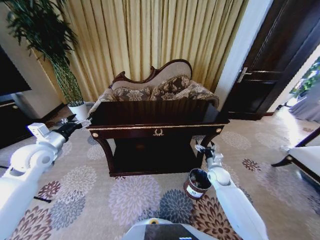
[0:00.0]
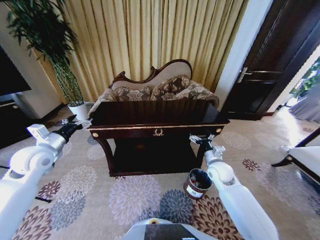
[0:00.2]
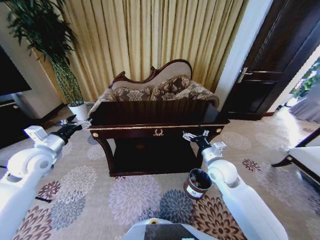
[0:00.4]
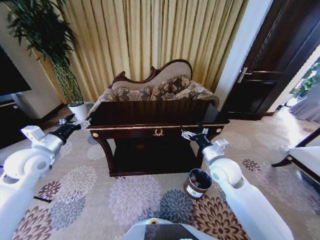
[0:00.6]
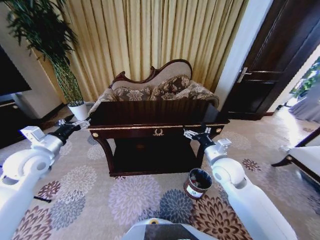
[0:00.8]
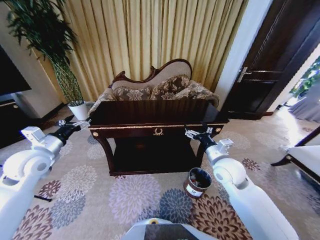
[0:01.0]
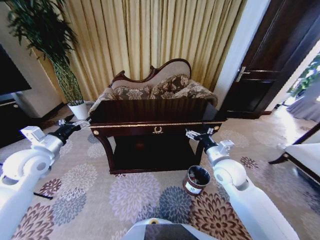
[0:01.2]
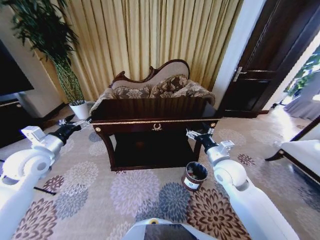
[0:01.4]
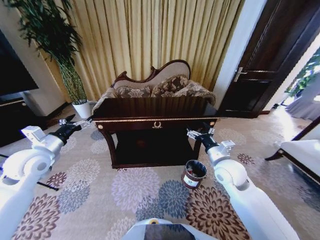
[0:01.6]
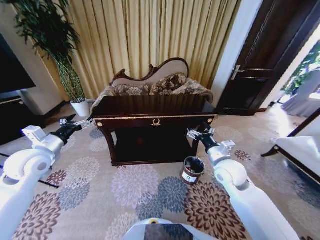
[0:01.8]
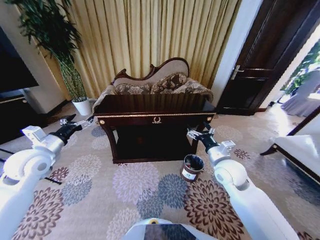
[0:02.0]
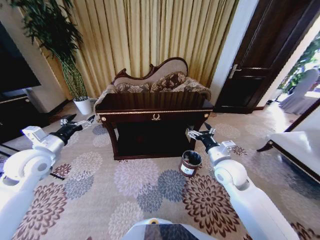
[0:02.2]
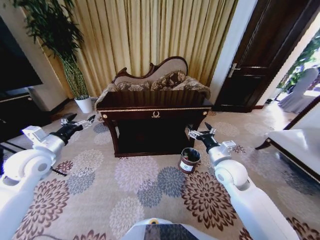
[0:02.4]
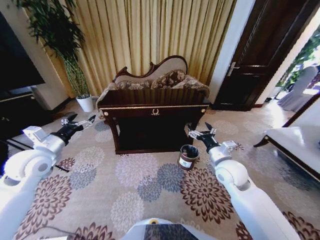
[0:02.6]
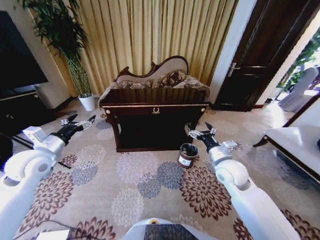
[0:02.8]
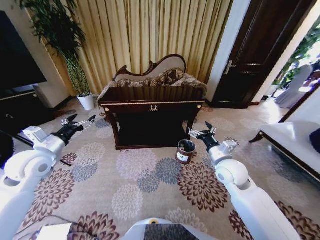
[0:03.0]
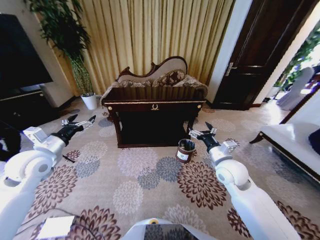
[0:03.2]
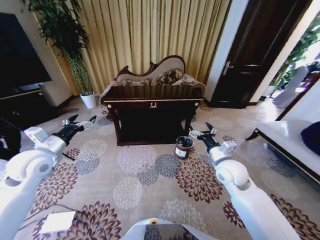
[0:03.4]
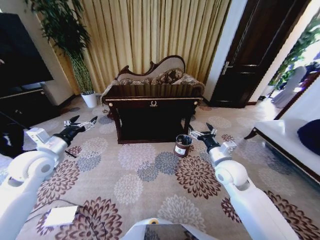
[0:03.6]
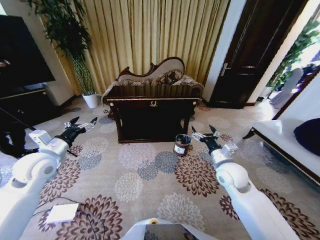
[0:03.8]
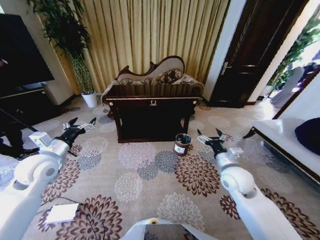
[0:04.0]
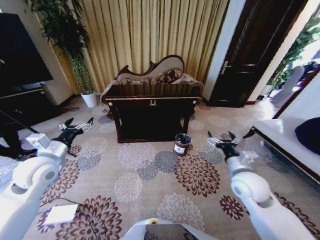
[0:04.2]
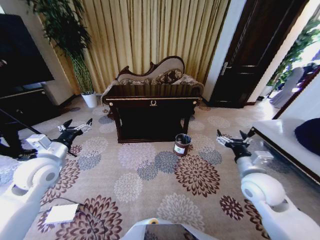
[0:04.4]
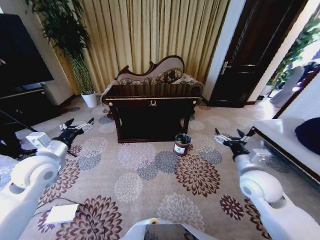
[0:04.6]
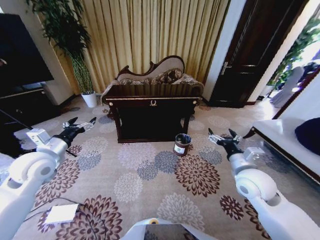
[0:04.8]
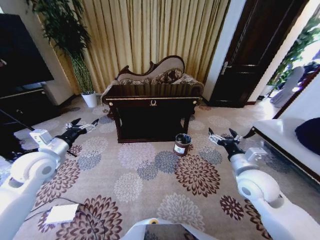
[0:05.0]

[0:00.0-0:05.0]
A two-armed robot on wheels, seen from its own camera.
Task of the whole recording: Move to the front of the table and place the trash on the table into the trash bin.
0:00.0 to 0:01.6: The right gripper is displaced upward by about 15 cm.
0:03.4 to 0:05.0: The right gripper heads backward, covering roughly 5 cm.

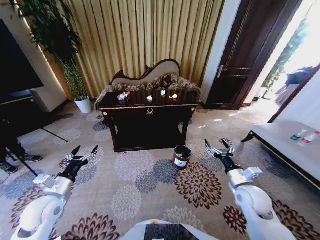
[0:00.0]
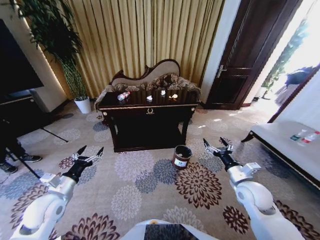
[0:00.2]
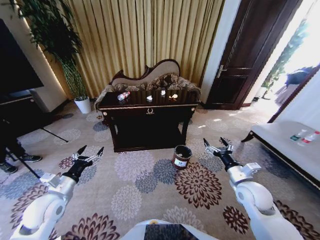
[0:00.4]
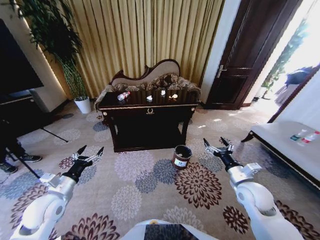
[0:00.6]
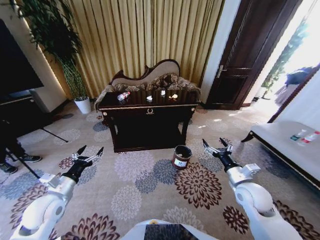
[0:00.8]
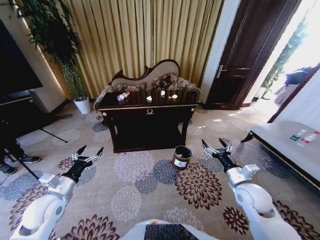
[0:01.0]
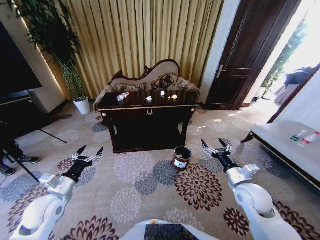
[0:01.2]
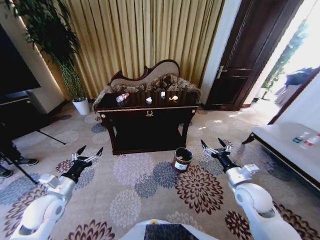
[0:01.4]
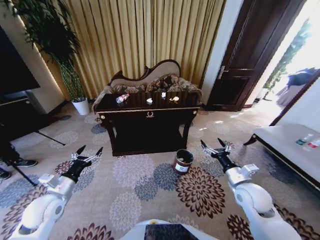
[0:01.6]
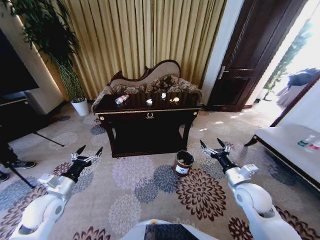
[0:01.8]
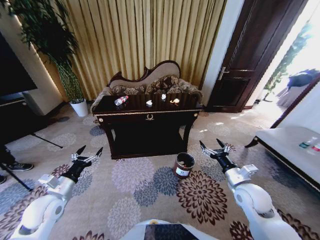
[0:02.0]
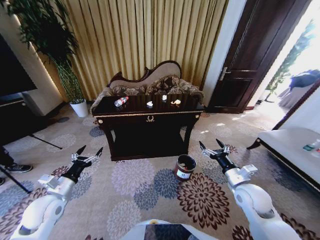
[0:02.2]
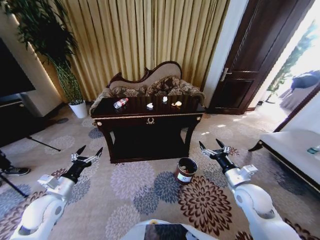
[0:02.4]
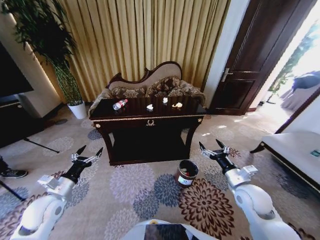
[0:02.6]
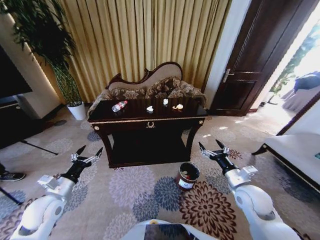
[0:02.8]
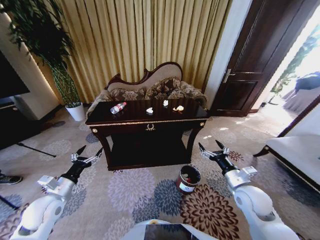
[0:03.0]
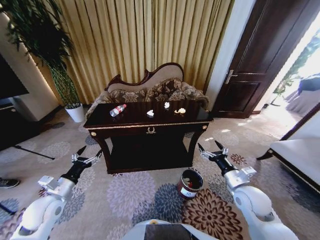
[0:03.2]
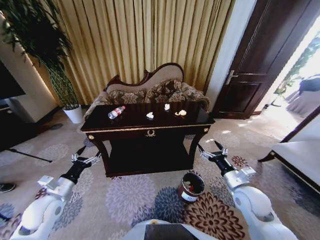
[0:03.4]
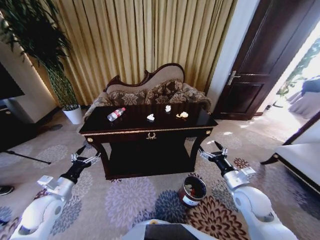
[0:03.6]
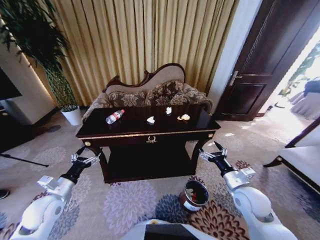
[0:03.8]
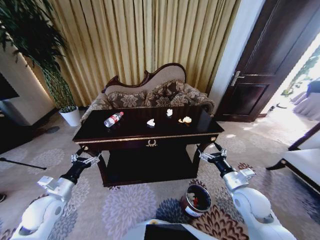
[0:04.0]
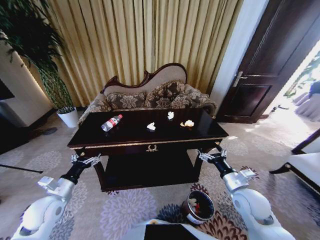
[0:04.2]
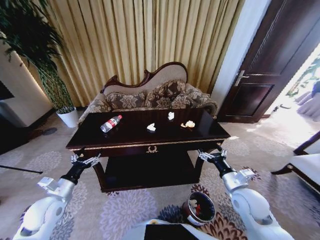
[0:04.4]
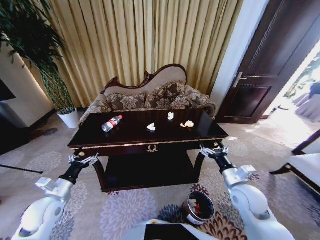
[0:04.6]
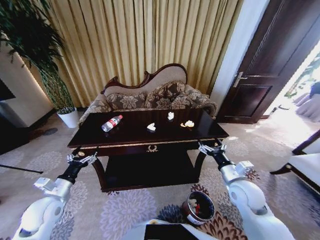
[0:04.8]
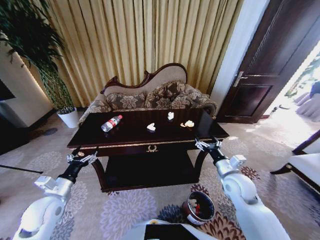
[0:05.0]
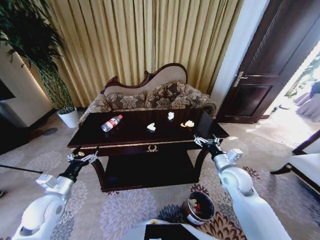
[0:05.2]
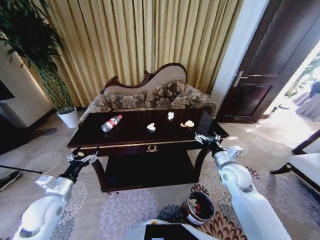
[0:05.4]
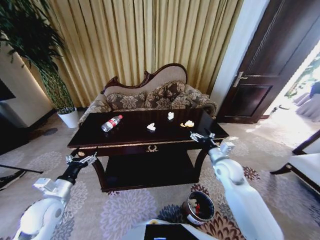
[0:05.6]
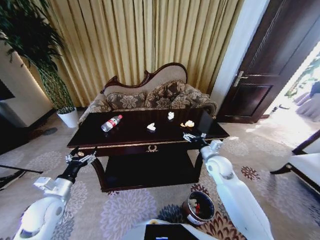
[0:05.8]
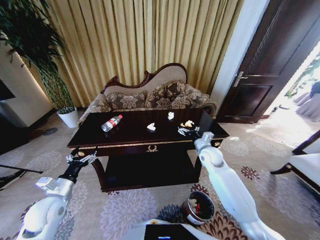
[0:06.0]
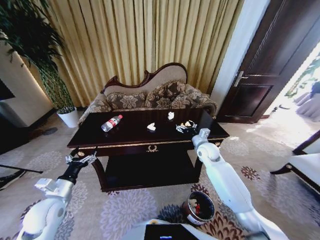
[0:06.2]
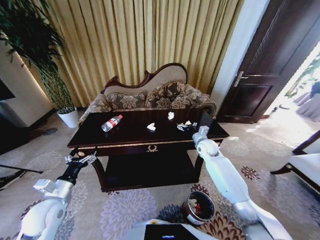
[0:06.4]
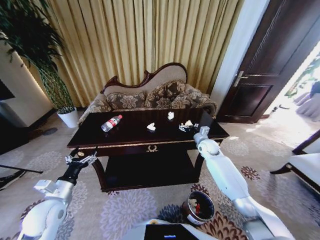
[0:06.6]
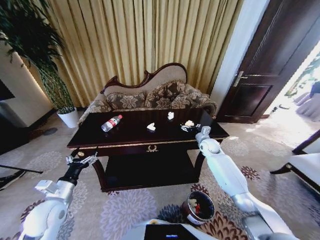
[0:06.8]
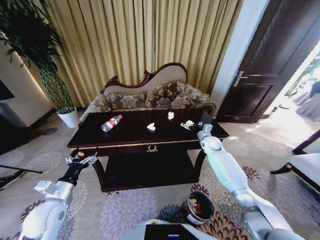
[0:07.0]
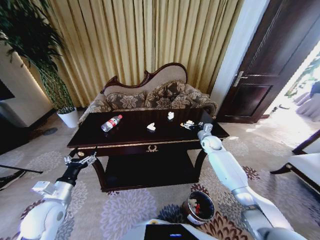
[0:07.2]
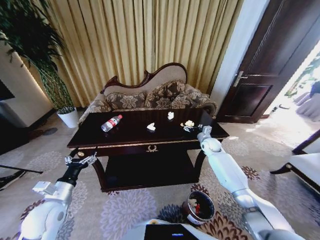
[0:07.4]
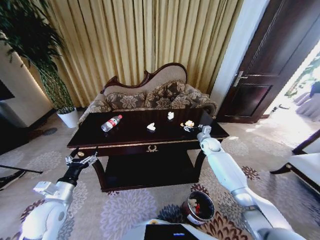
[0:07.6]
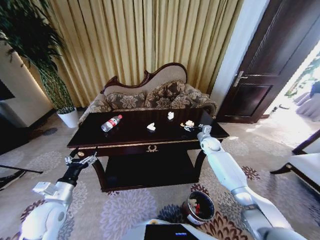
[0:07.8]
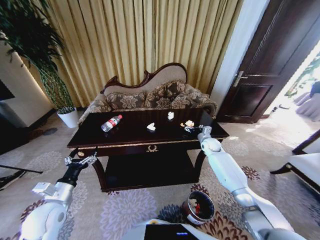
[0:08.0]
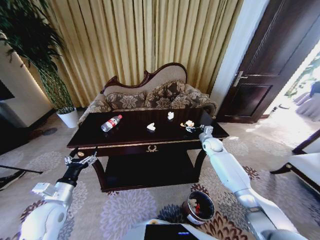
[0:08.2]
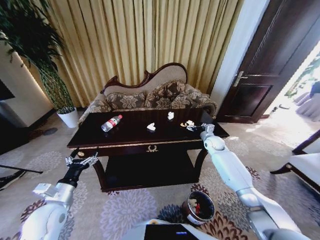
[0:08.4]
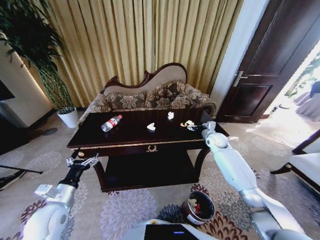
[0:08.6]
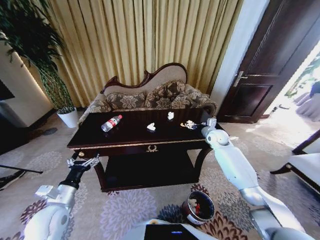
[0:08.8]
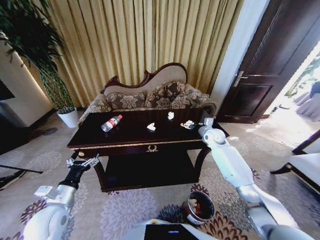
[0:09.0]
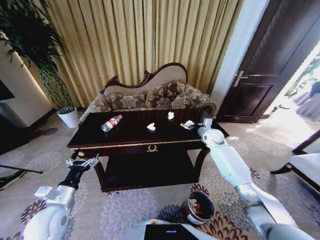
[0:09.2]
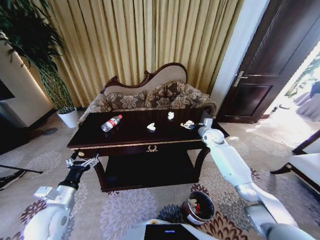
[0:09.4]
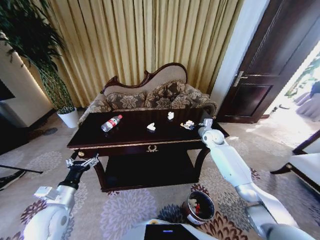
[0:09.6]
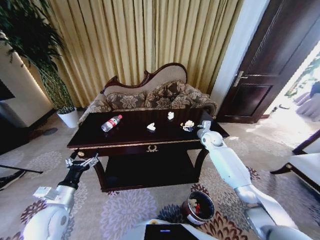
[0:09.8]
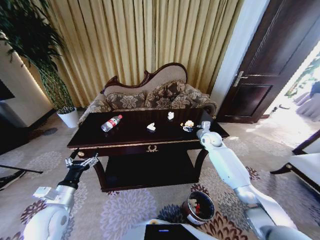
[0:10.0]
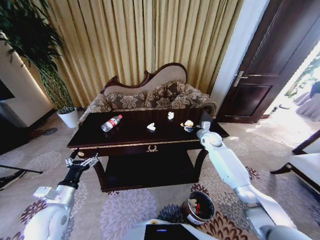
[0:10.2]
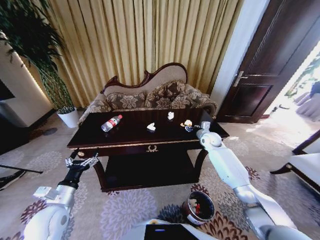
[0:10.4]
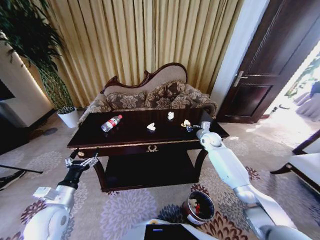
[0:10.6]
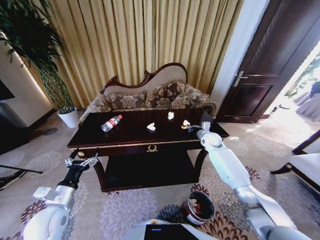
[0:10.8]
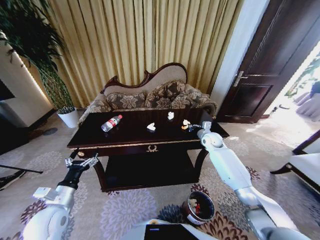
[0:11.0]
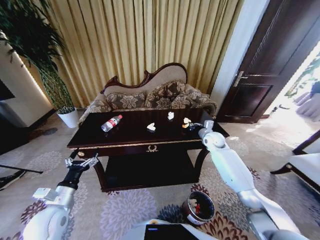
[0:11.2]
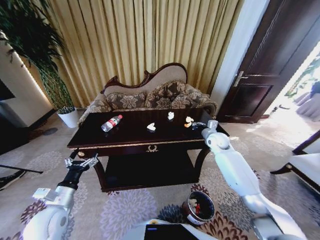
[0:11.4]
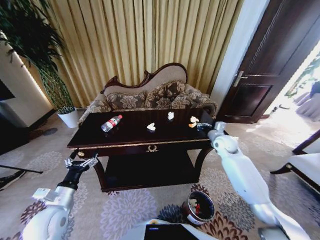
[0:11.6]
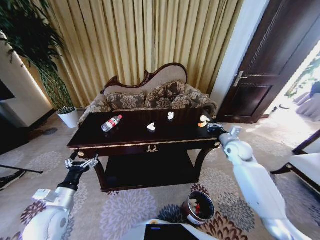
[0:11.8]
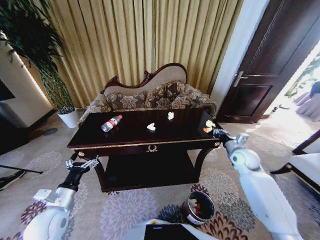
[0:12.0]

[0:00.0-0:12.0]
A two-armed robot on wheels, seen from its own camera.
Task of the whole recording: Move to the front of the table and place the trash on the table into the trash bin.
0:04.4 to 0:06.0: The right gripper shifts roughly 20 cm forward.
0:06.0 to 0:07.6: The right gripper heads forward and to the right, covering some 15 cm.
0:07.6 to 0:09.0: The right gripper moves upward, approximately 5 cm.
0:09.0 to 0:10.4: The right gripper closes up.
0:10.4 to 0:12.0: The right gripper heads backward and to the right, covering approximately 15 cm, and closes its fingers.

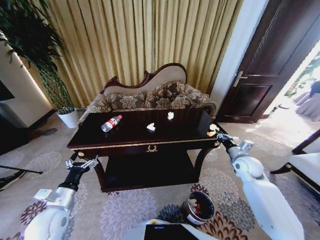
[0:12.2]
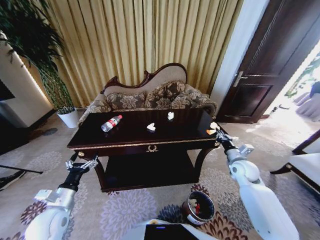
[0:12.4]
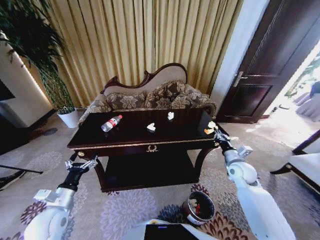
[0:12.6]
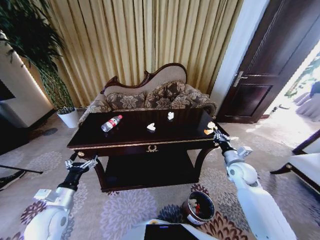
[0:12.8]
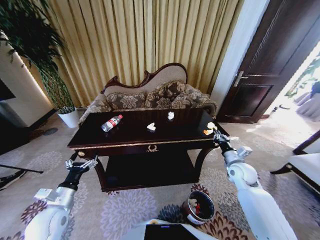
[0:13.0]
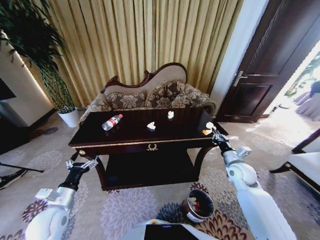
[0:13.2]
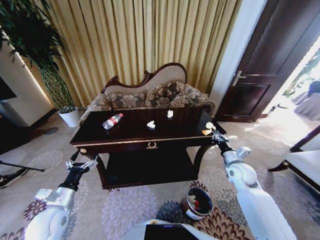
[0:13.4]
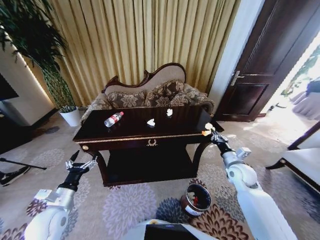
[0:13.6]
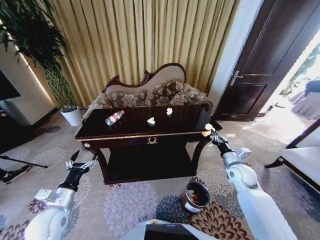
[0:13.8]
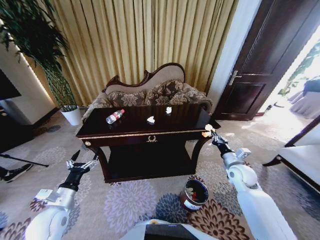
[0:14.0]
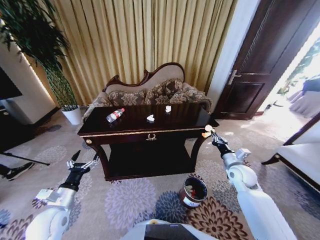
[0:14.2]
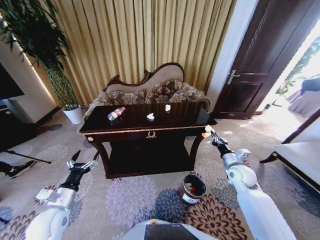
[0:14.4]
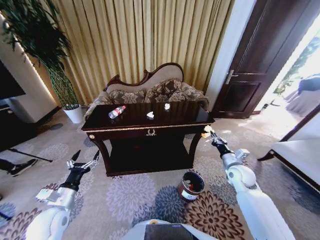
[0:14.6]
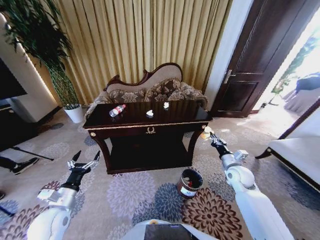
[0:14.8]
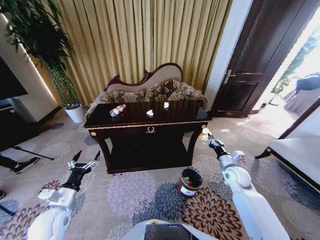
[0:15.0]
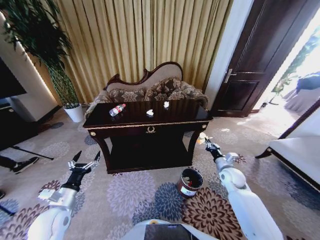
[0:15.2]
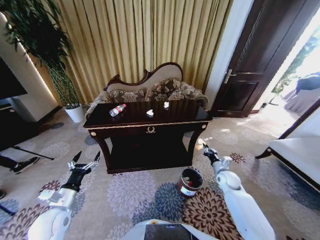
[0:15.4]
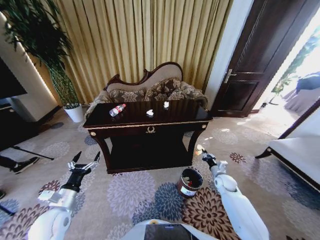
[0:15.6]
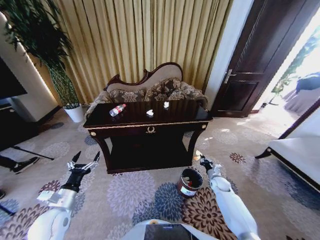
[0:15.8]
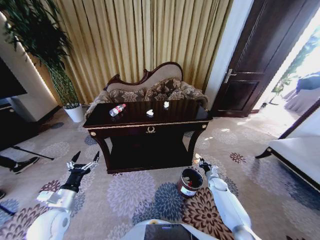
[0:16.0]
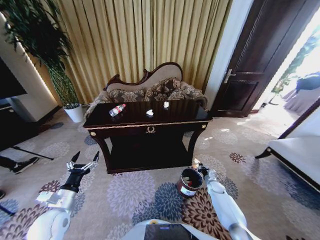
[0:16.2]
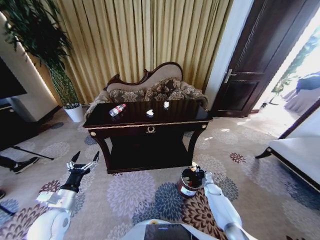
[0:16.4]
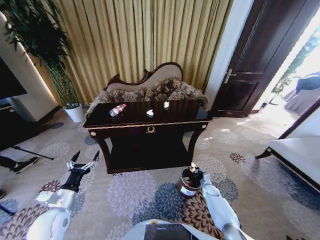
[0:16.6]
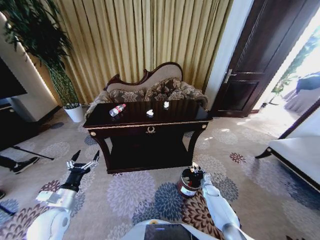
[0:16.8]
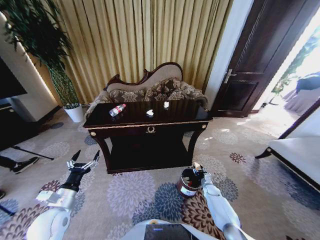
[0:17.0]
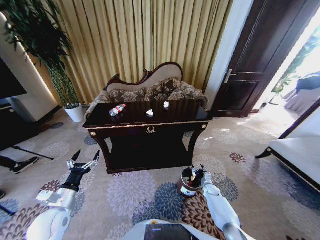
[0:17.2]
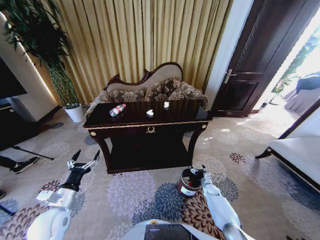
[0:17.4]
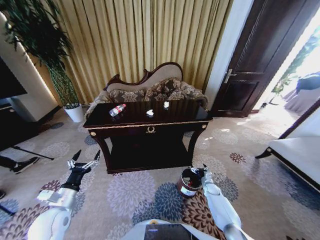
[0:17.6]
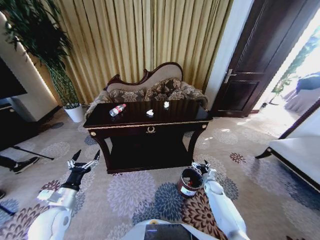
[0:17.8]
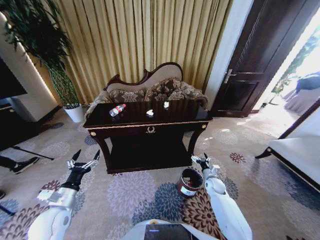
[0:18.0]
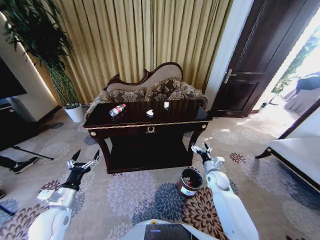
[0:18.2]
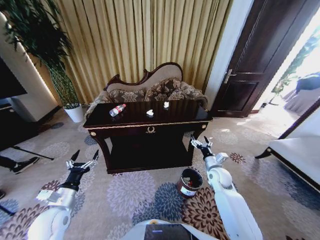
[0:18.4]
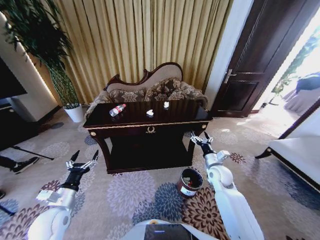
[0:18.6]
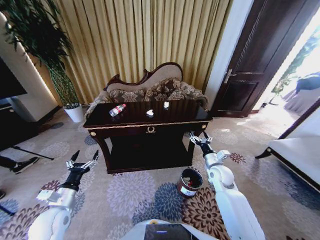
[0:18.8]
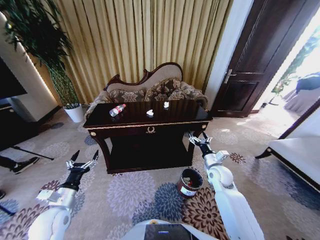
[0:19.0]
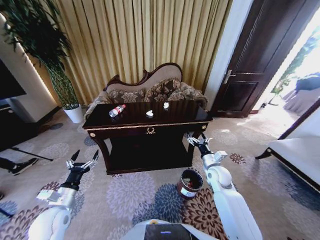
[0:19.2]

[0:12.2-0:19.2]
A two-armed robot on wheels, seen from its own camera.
Task of the whole recording: Move to the front of the table and place the trash on the table into the trash bin.
0:12.2 to 0:13.6: The right gripper shifts by roughly 5 cm.
0:15.0 to 0:16.4: The right gripper moves downward, some 25 cm.
0:16.4 to 0:17.8: The right gripper opens.
0:17.8 to 0:19.2: The right gripper heads upward, covering approximately 20 cm.
